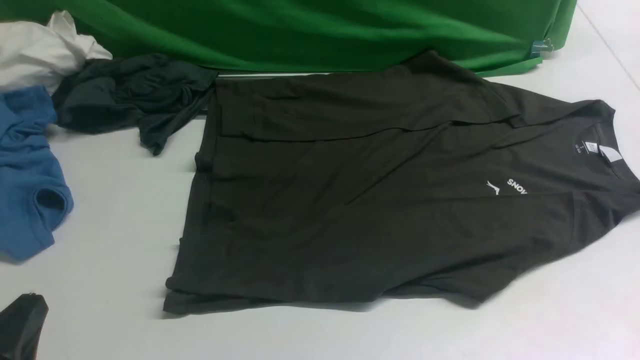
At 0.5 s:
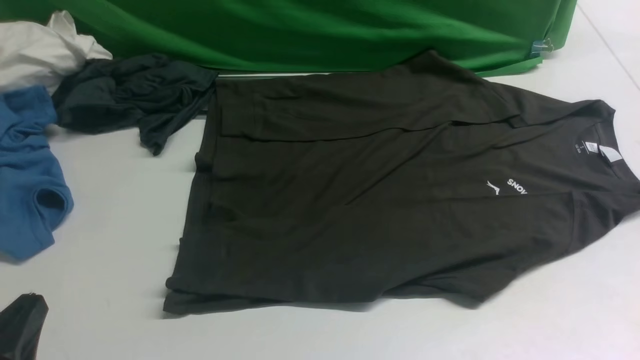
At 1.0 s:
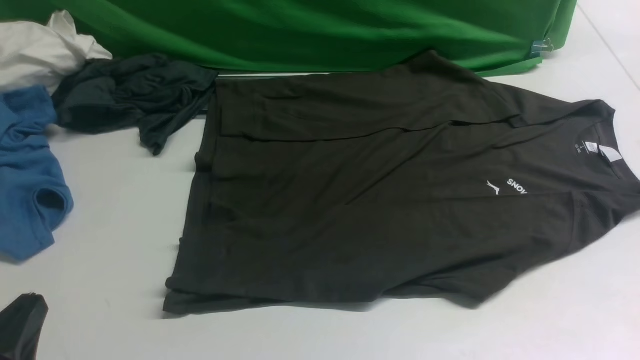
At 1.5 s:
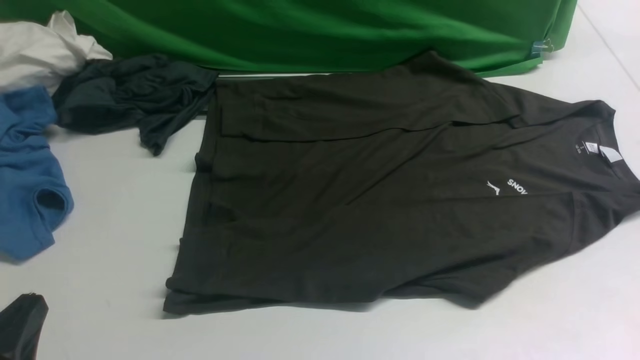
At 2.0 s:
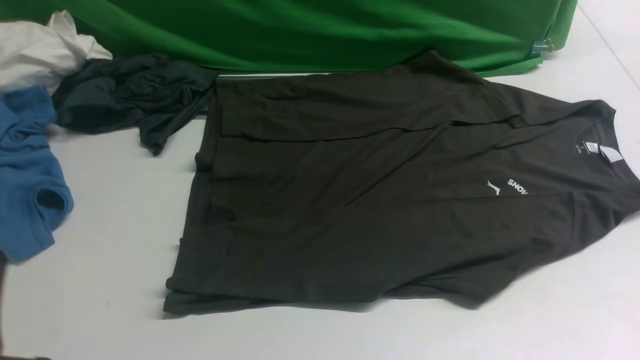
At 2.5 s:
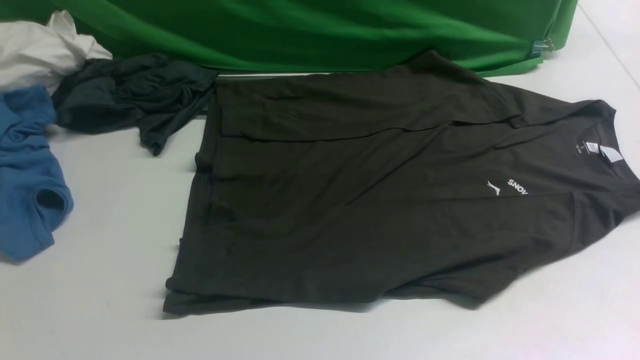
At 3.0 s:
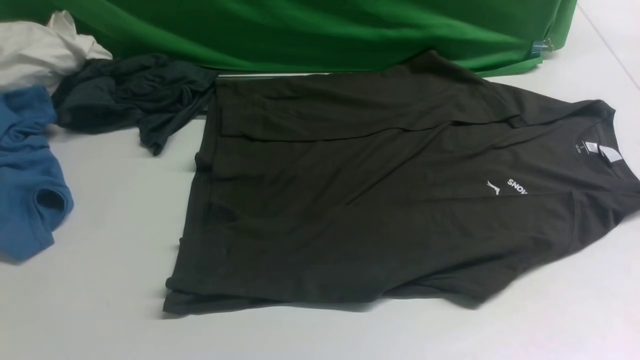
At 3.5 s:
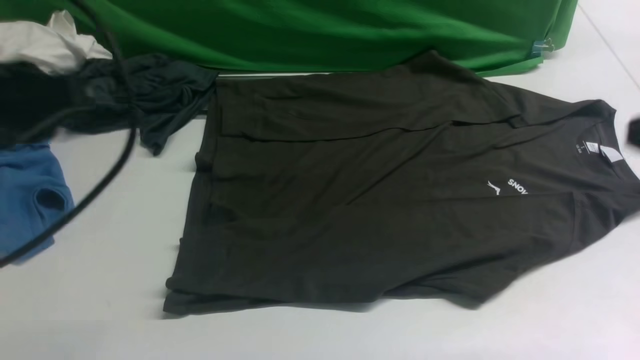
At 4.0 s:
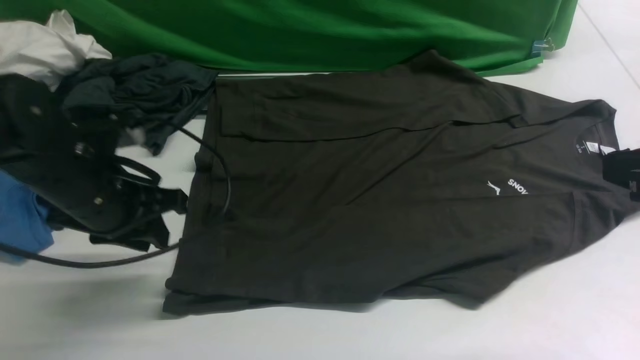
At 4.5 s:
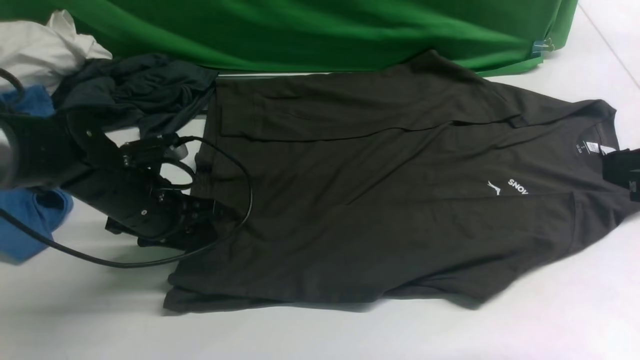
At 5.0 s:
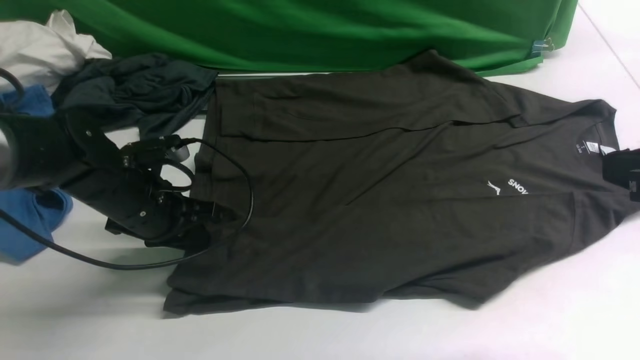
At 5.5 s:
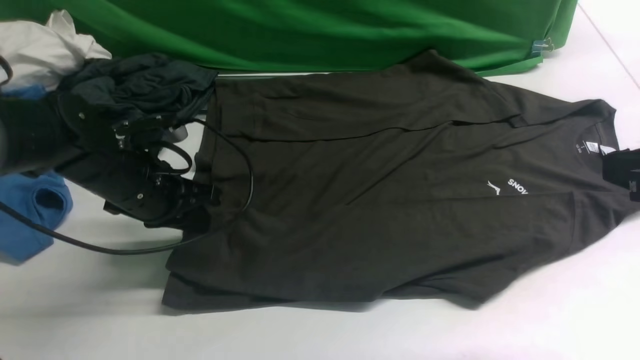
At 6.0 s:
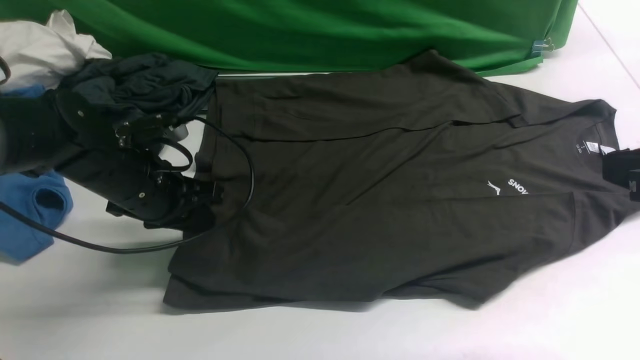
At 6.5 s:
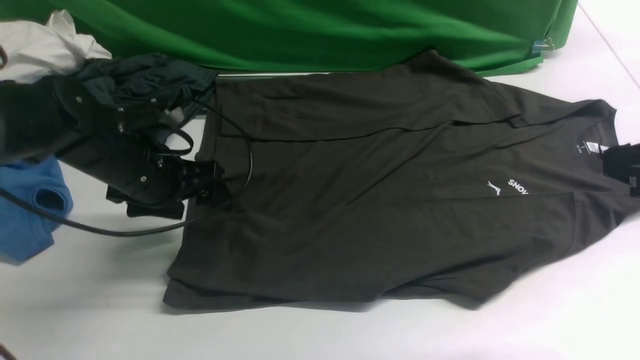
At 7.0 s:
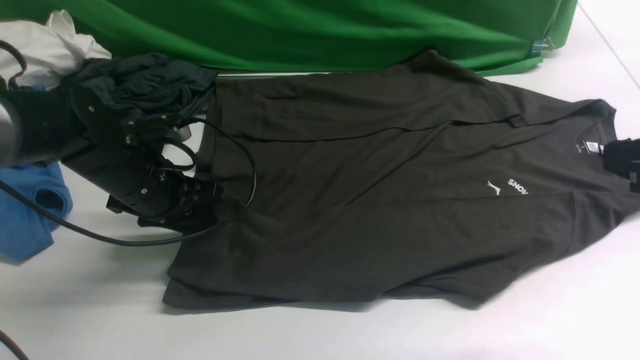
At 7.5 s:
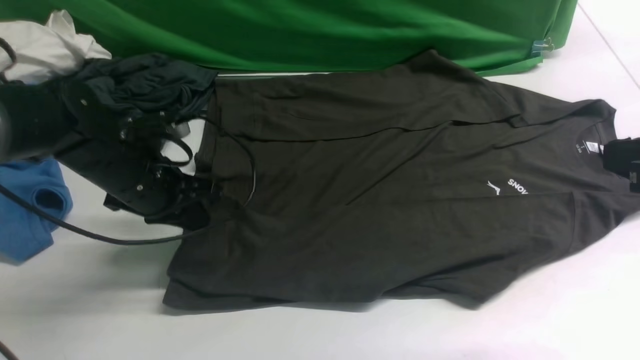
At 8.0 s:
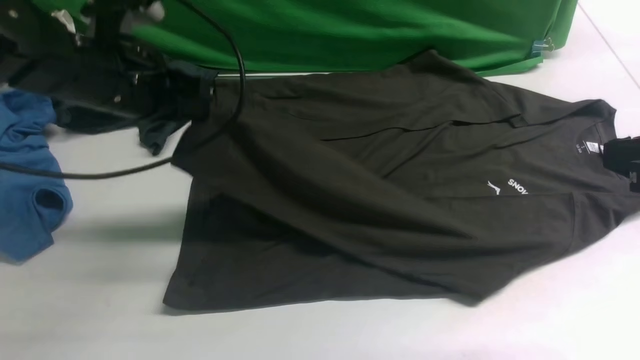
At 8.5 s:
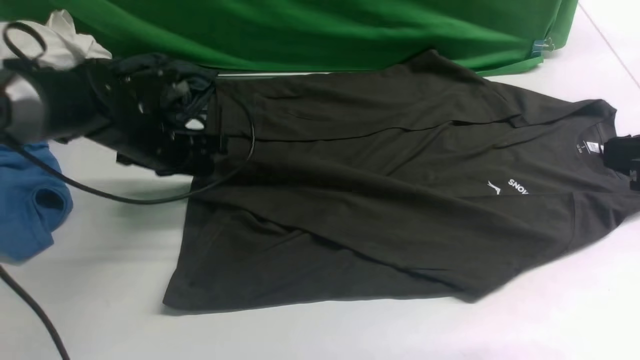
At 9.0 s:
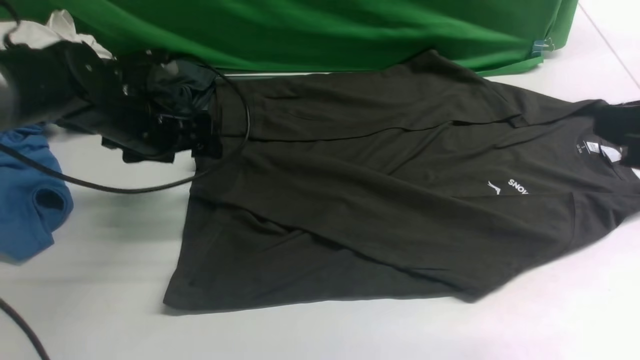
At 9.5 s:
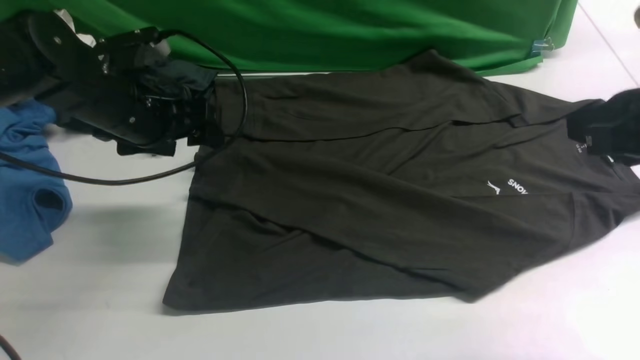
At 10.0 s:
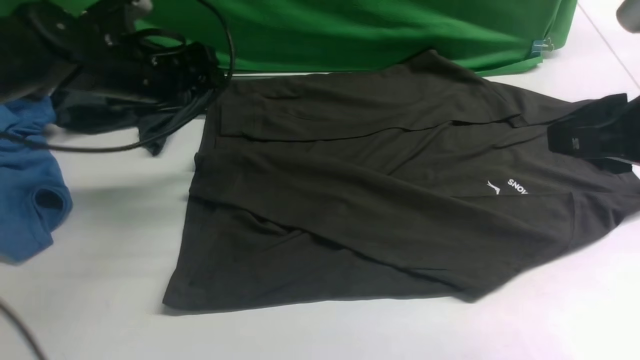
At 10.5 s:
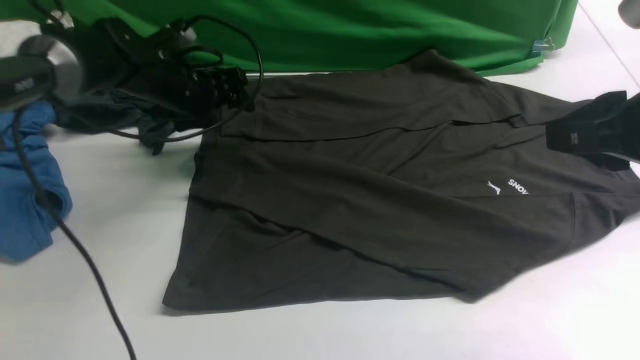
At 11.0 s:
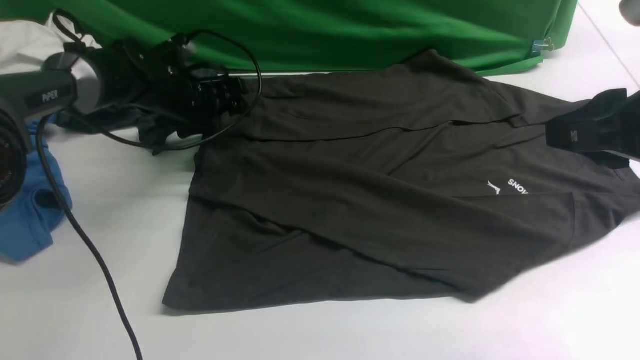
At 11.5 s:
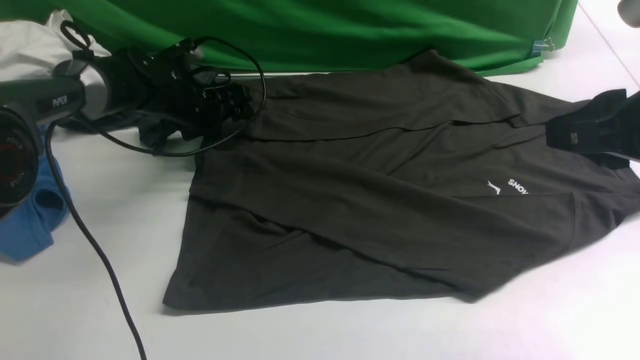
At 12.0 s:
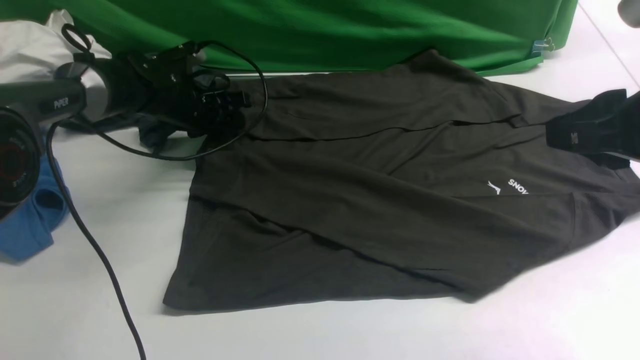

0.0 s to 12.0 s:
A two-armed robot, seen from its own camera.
Step, 0.0 to 7.5 s: use the left arm to clamp the cuff closest to it.
Step, 8.0 to 9.0 s: use the left arm to drag and place the cuff at the centered position on the left edge of the fabric.
2.0 to 4.0 s: The left gripper moves forward, some 25 cm.
4.0 to 6.0 s: The left gripper ends up roughly 5 cm from where it was.
6.0 to 8.0 s: The left gripper goes approximately 10 cm upward, and opens, then closes again.
8.0 to 10.0 s: The left gripper travels forward by approximately 5 cm, moves approximately 10 cm downward and comes back, and opens its fingers.
10.0 to 12.0 s: The left gripper goes roughly 15 cm downward and forward, and closes its fingers.

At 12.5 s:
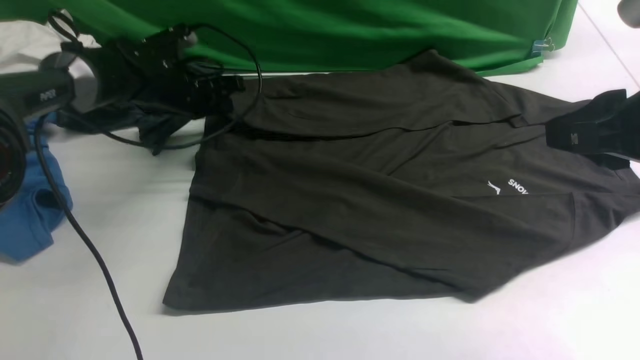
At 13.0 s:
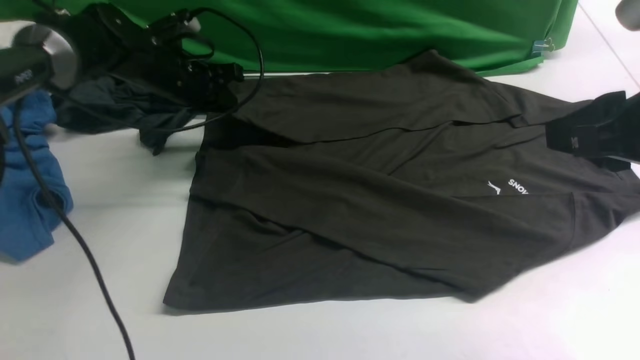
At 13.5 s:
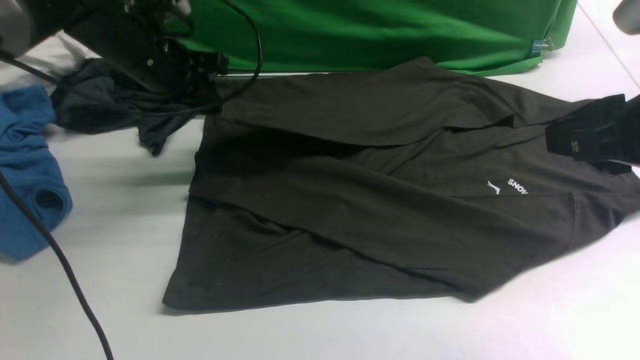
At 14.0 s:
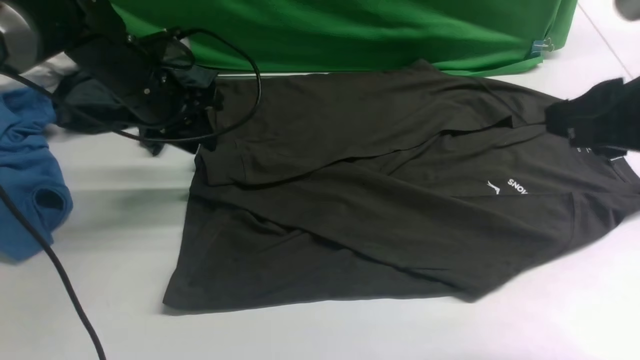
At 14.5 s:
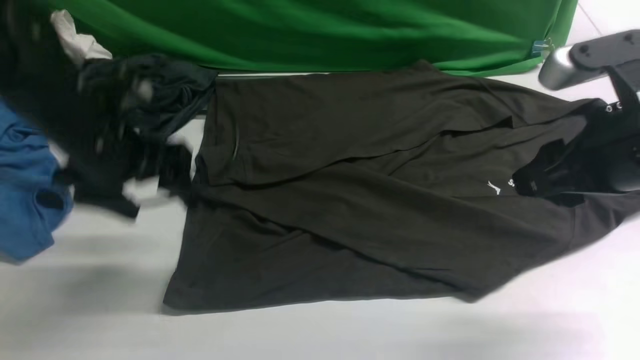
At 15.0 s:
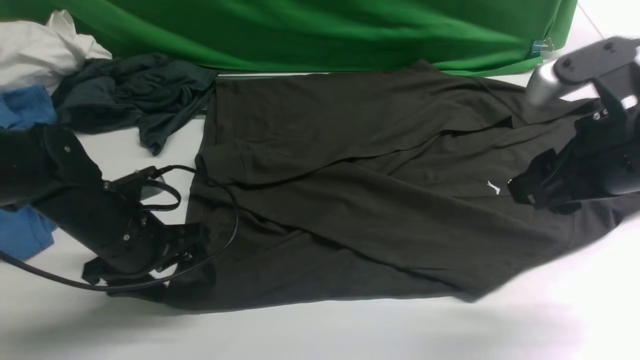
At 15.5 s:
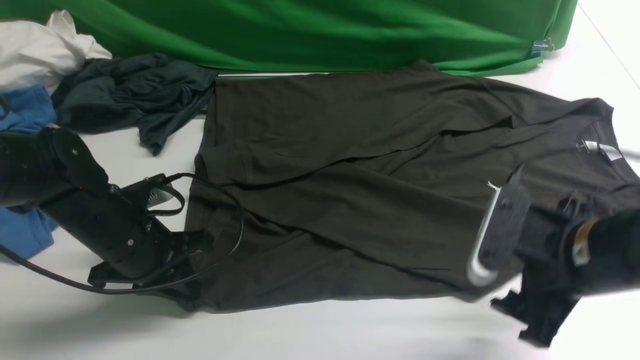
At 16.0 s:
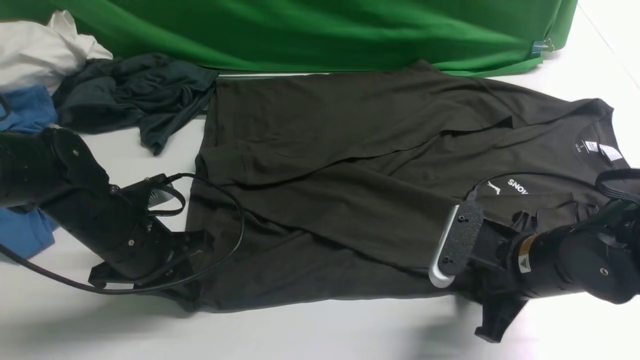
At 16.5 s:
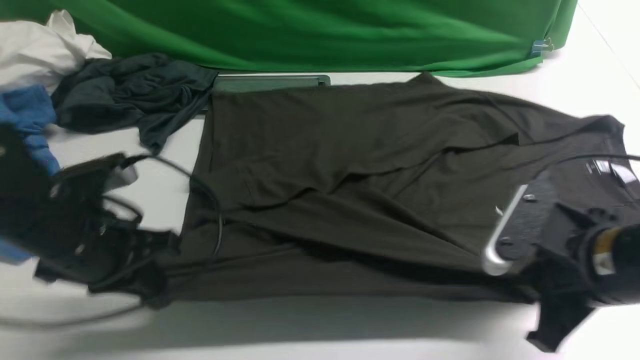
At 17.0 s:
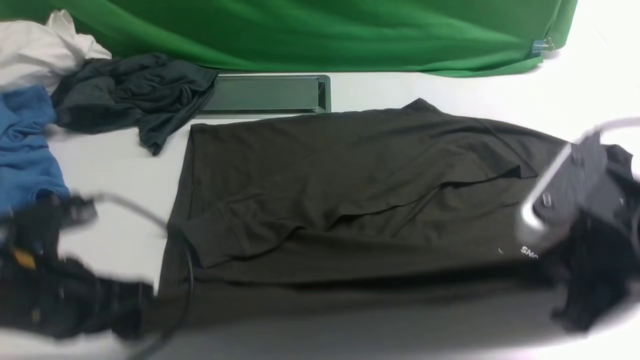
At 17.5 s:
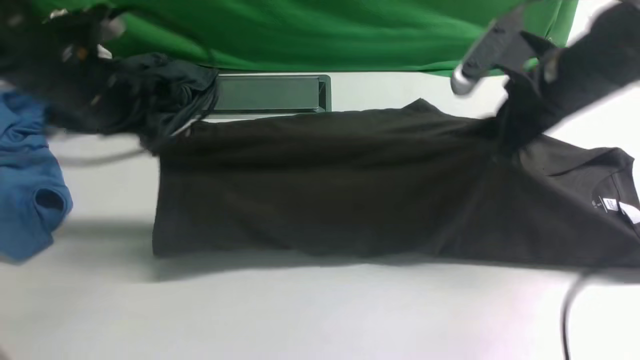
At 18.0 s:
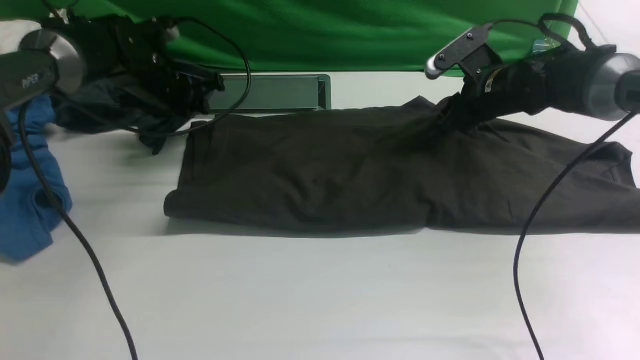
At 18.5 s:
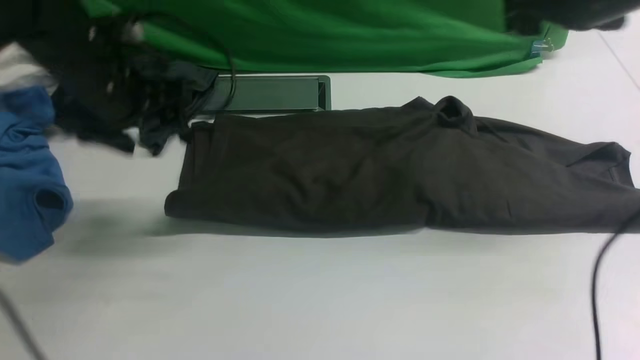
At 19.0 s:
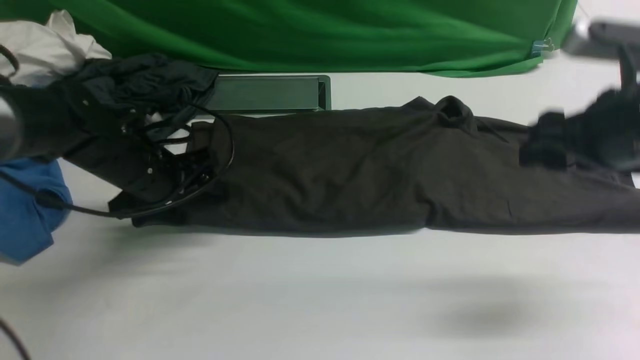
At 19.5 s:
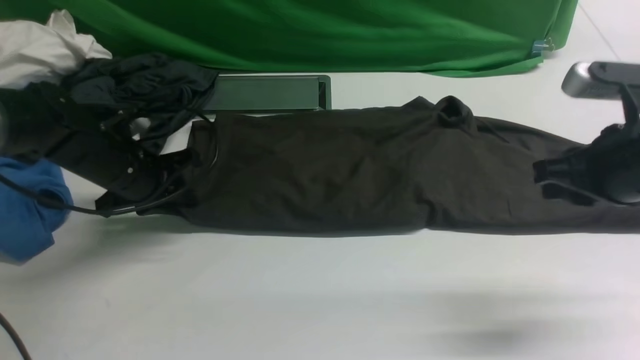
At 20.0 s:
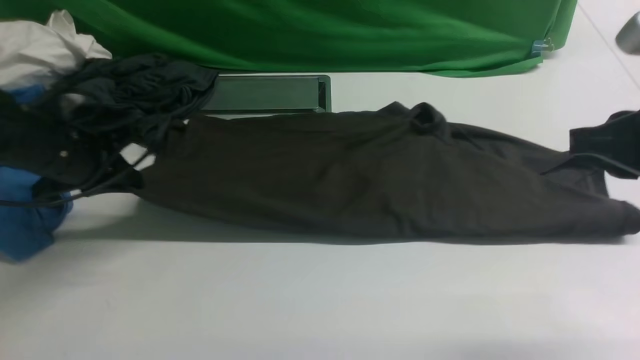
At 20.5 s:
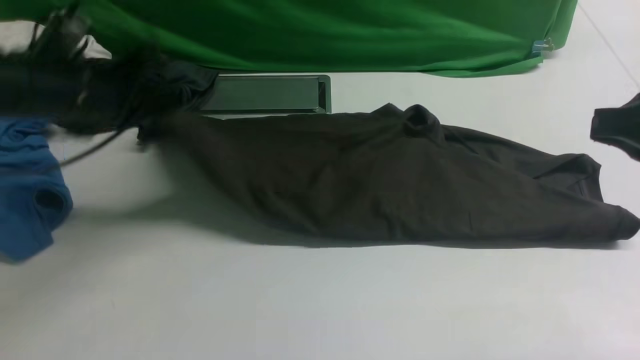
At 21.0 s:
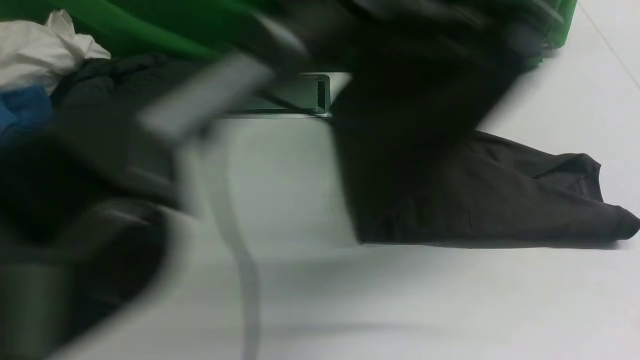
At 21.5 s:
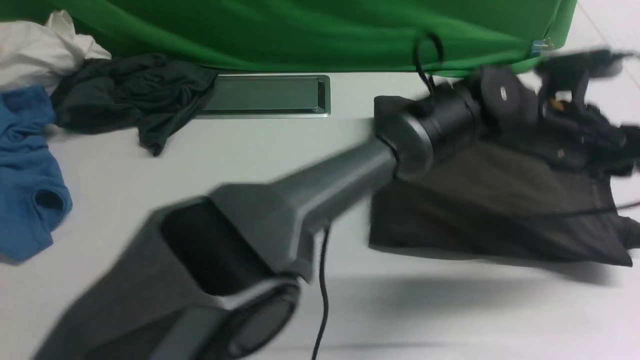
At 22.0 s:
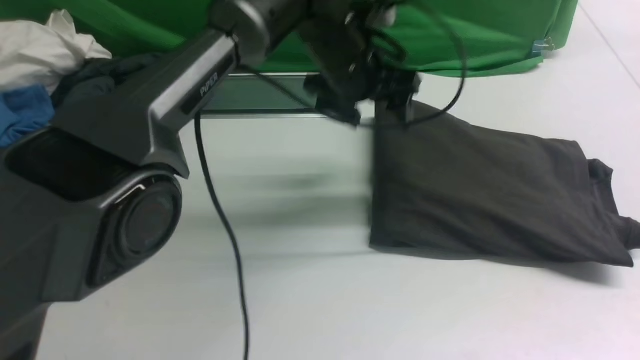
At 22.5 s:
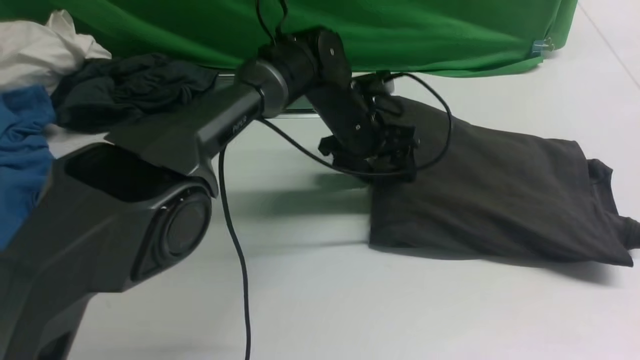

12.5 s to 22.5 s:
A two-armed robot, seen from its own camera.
Step, 12.5 to 14.0 s: use the left arm to drag and drop the cuff onto the cuff closest to the left arm.
Step, 14.5 to 16.0 s: use both arms simultaneously to clamp the lower edge of the clothing fabric.
Step, 16.5 to 18.0 s: use both arms to drag the lower edge of the fabric forward and fold it over the upper edge.
Step, 18.5 to 20.0 s: Hold the left edge of the fabric with your left arm.
Step, 20.5 to 21.5 s: Drag the left edge of the fabric to the left with your left arm and fold it to the right edge.
12.5 to 14.5 s: The right gripper ends up some 5 cm from where it was; the left gripper is displaced backward by approximately 20 cm, and opens up.
14.5 to 16.5 s: The right gripper shifts roughly 10 cm downward, and closes; the left gripper heads backward, covering approximately 10 cm, and closes its fingers.
16.5 to 18.5 s: The left gripper moves forward, about 15 cm, and opens its fingers, while the right gripper moves forward and upward, some 20 cm, and opens up.
18.5 to 20.5 s: The right gripper moves backward, some 15 cm, and closes its fingers; the left gripper moves roughly 10 cm downward and comes back, and closes up.
20.5 to 22.5 s: The right gripper is displaced backward by approximately 10 cm, and opens up. Meanwhile the left gripper shifts some 25 cm to the right and downward, and opens up.
